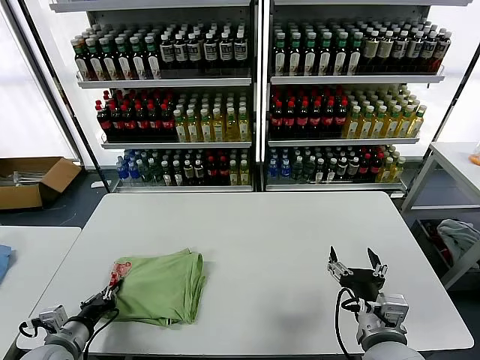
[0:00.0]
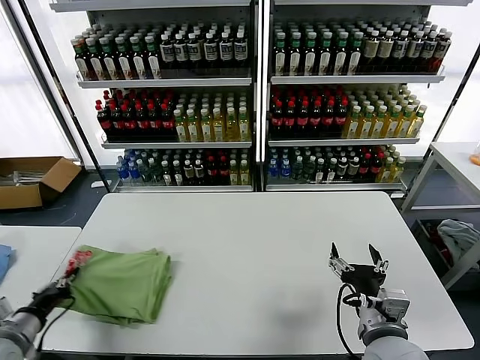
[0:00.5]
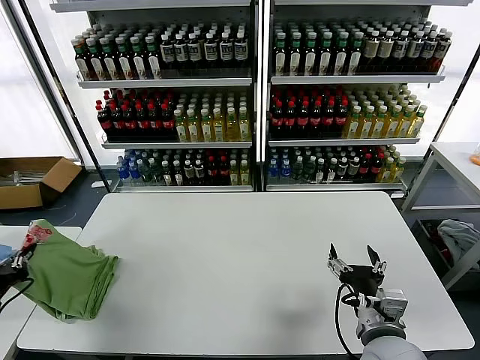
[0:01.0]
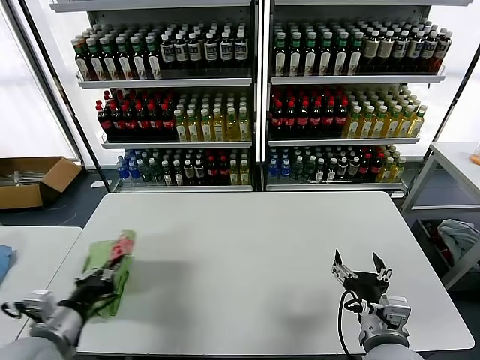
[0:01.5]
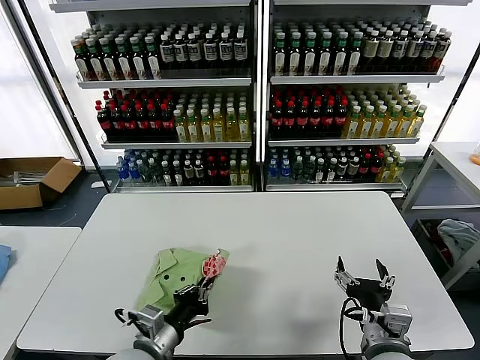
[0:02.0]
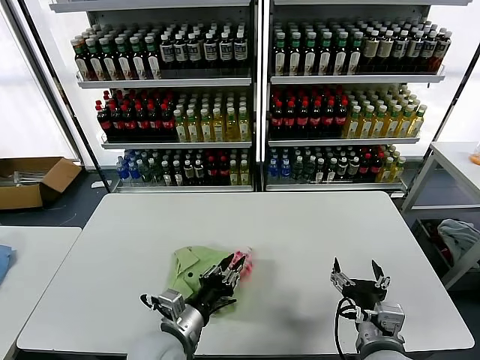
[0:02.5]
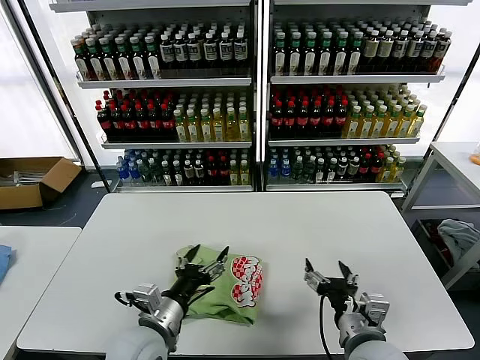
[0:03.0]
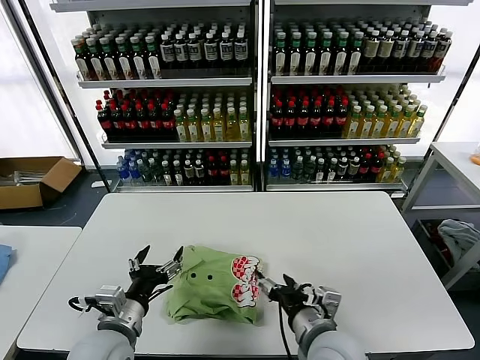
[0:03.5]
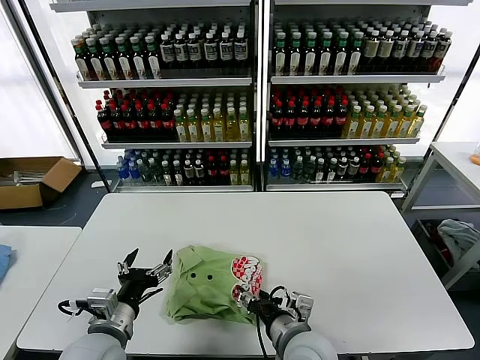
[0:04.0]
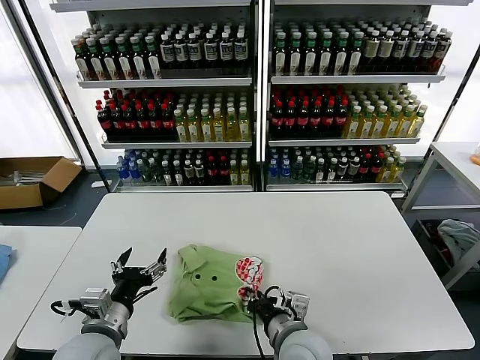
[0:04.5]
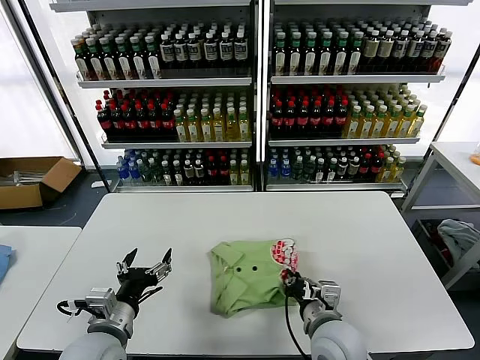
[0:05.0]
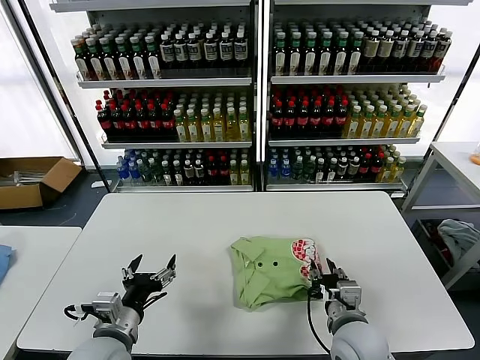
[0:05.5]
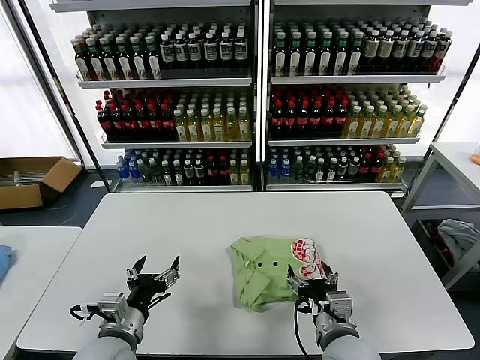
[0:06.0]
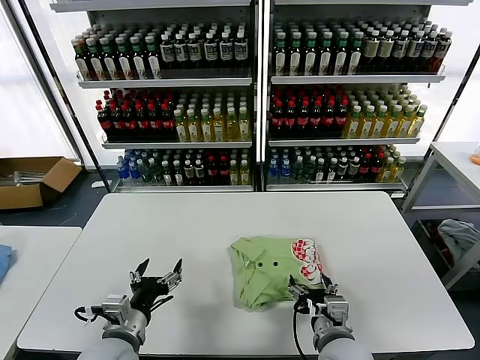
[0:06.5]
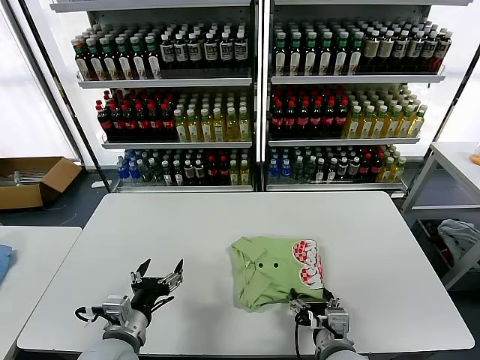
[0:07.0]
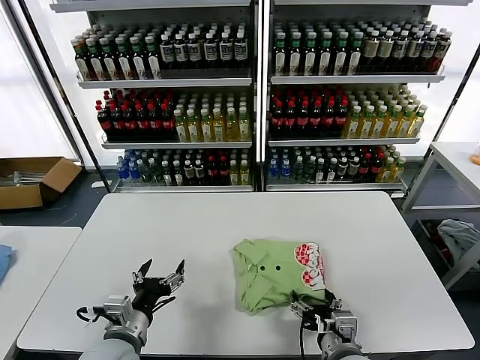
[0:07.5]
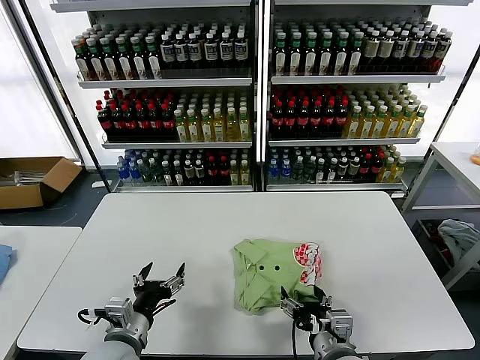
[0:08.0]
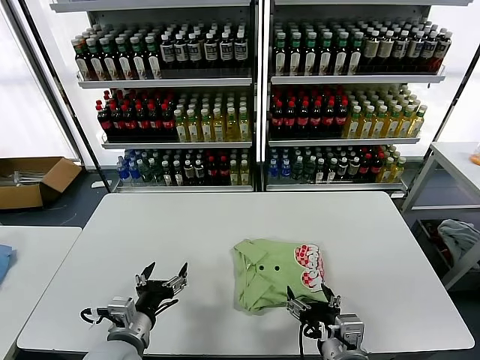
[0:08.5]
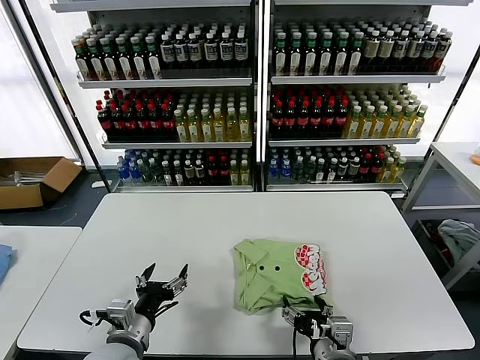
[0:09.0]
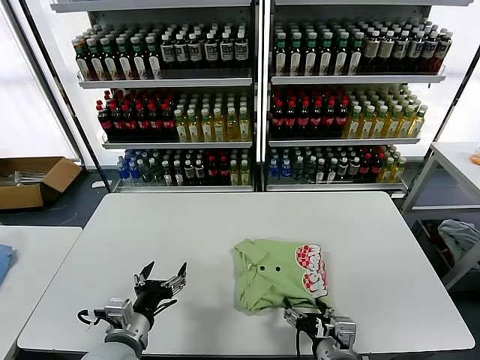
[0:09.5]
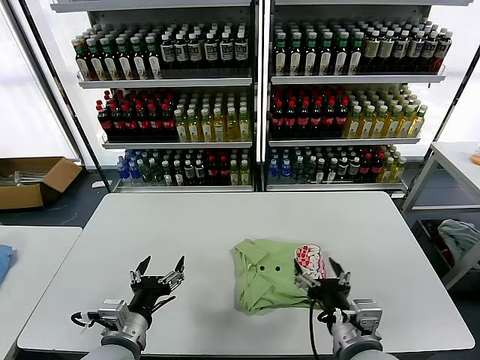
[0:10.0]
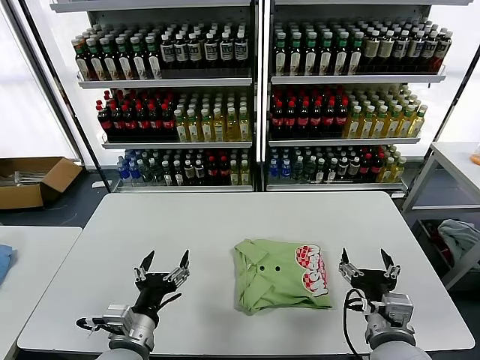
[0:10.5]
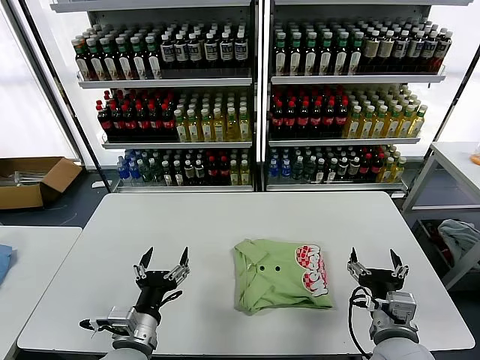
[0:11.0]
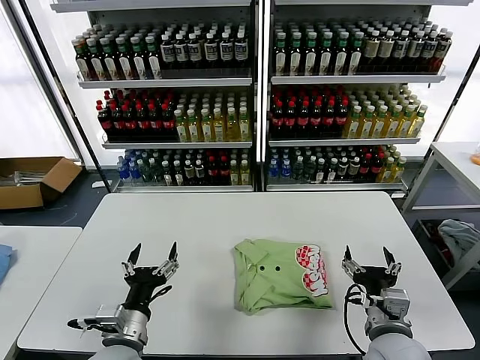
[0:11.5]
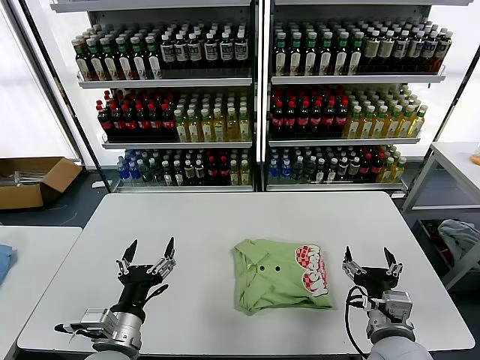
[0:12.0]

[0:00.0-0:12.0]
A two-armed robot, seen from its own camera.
Task of the whole recording: fold and organize the clothes.
Step, 0:00.0 to 0:02.5: Flip the folded clothes over with left gripper.
Step, 0:03.0 to 0:09.5: Drag the clothes to the center of the table.
0:00.0 to 0:02.0: The left gripper moves to the right, some 20 cm.
0:02.0 to 0:04.0: The right gripper travels to the left by approximately 10 cm; the left gripper travels to the left by some 5 cm, and opens up.
0:04.0 to 0:06.0: The right gripper travels to the right by about 5 cm, and closes, then reopens.
0:06.0 to 0:08.0: There are only small adjustments of the grippers.
0:08.0 to 0:10.0: The right gripper shifts by about 5 cm.
0:10.0 to 0:12.0: The right gripper goes roughly 5 cm to the right.

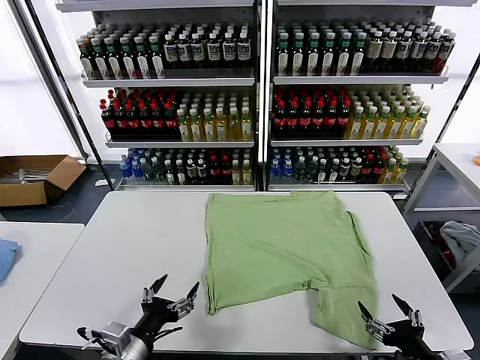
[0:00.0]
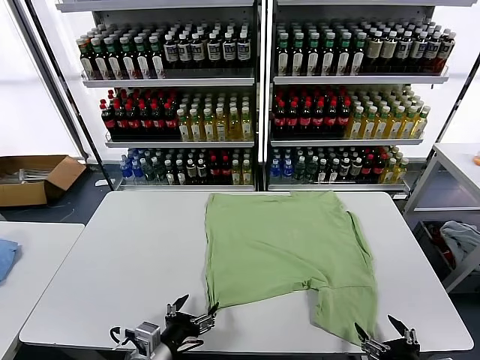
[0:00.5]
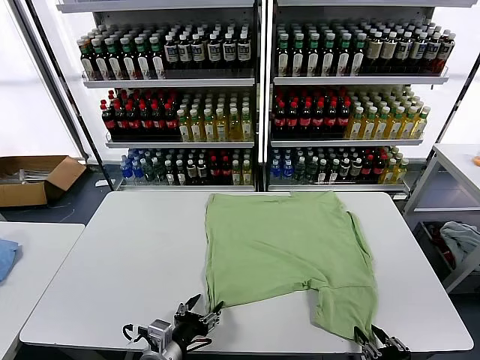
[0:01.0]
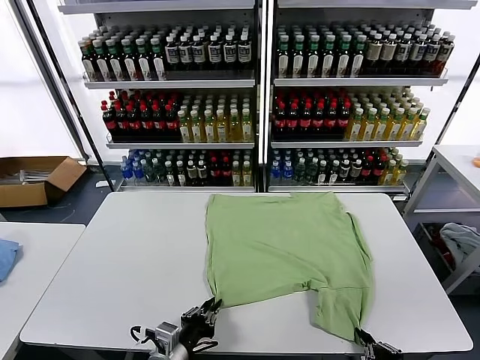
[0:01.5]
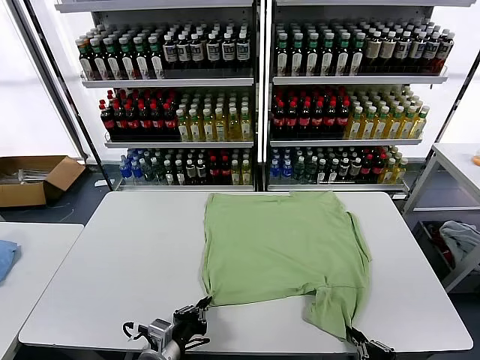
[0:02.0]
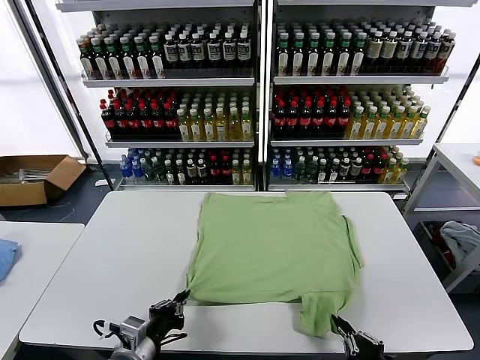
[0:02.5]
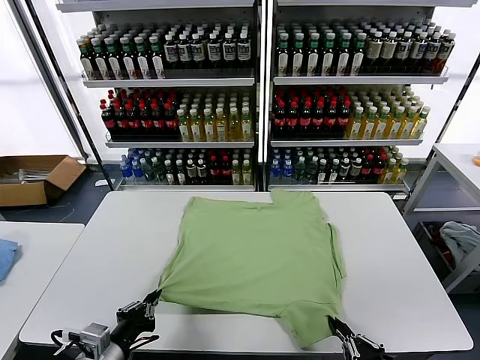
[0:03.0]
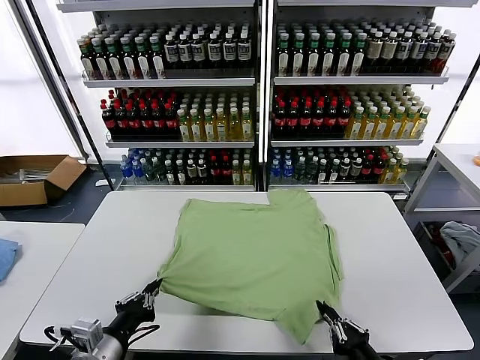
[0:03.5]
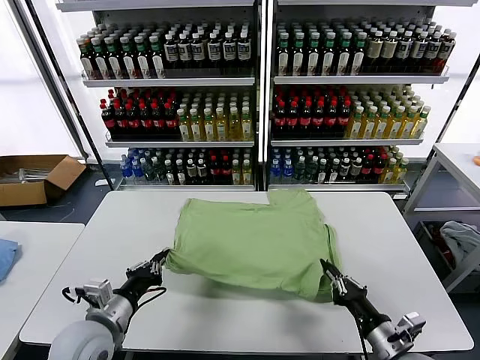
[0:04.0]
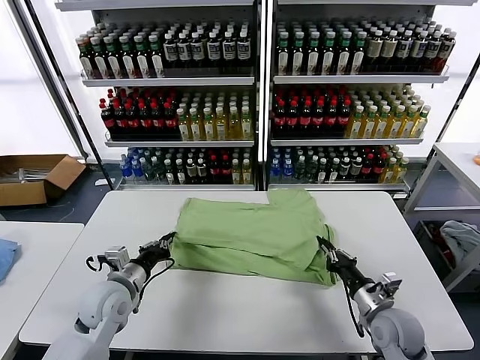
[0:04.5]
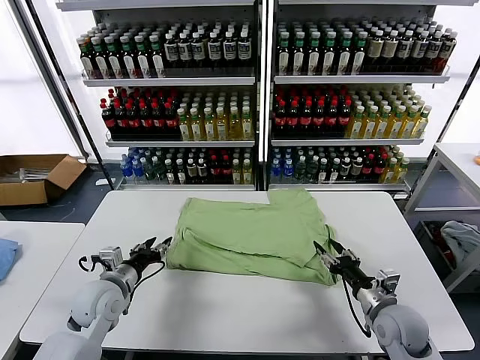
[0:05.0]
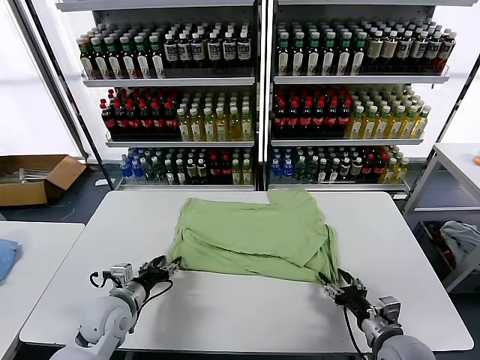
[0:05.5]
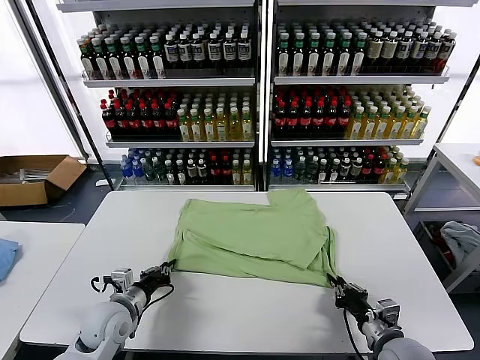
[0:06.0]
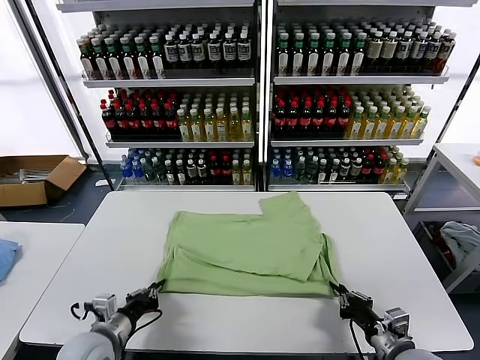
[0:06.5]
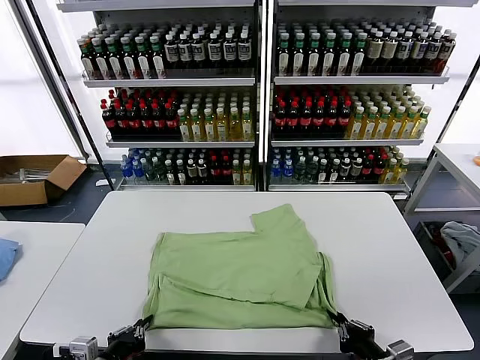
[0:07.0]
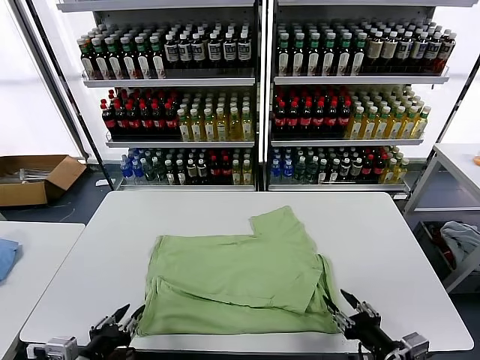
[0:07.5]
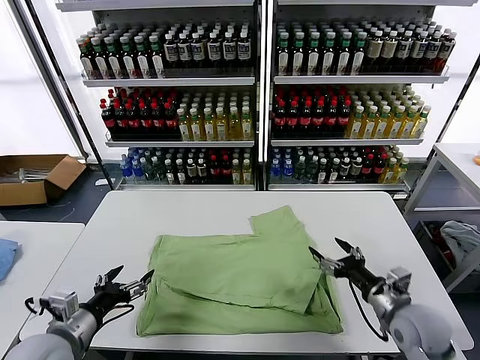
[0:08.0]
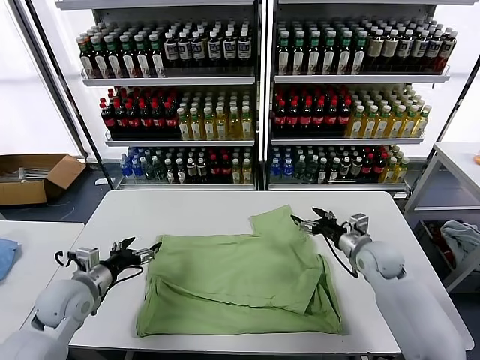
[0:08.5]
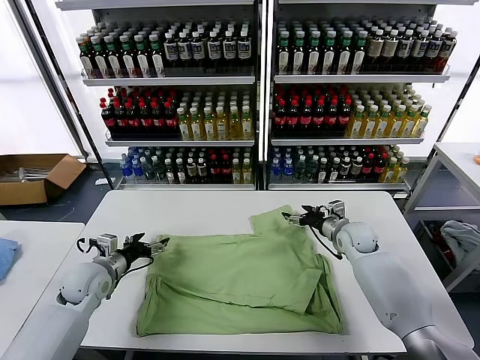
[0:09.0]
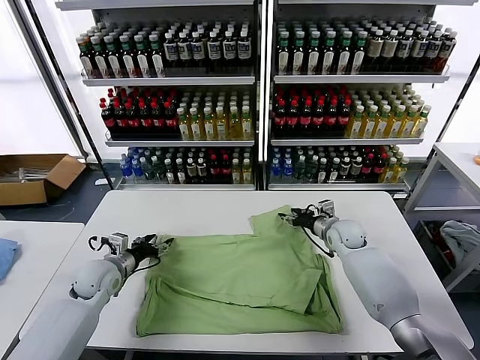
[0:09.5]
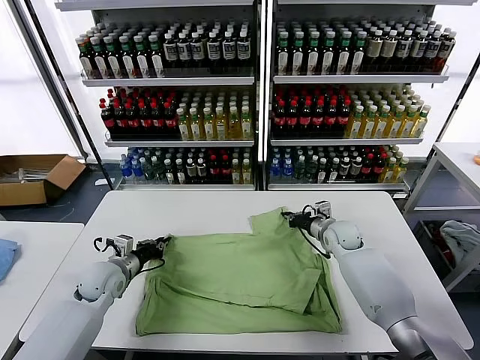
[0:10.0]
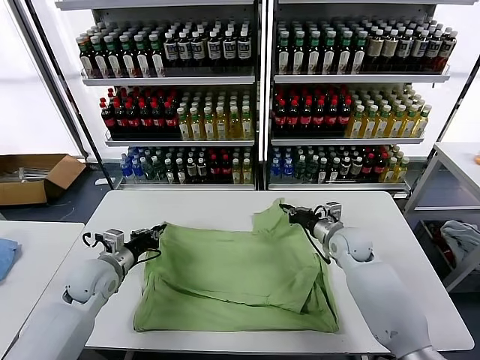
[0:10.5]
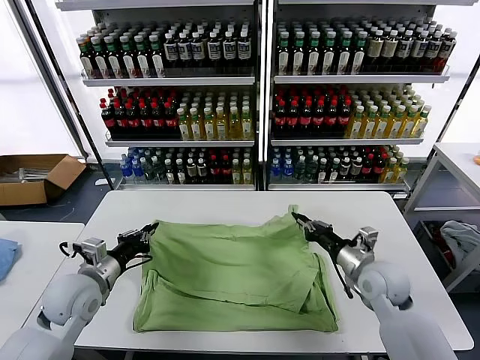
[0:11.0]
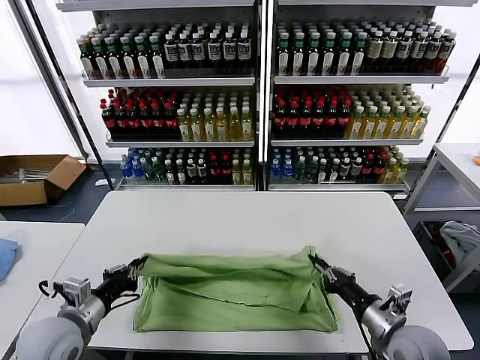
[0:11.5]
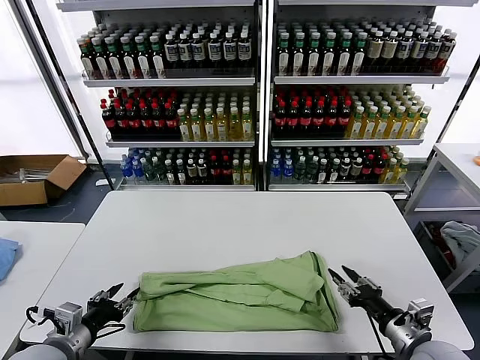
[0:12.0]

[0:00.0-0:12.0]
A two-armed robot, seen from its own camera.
Task of the whole recording: fold and organize the clothes.
Step, 0:00.0 to 0:01.5: use both grippers simultaneously to clamp the lower edge of the clothing fabric.
Step, 0:02.0 to 0:04.5: use both grippers to drag the lower edge of the fabric forward and fold it over the upper edge.
Step, 0:05.0 to 0:07.0: Drag the clothes downward with both gripper.
Step, 0:07.5 to 0:10.0: use both grippers simultaneously to clamp the upper edge of the clothing fabric.
Step, 0:10.5 to 0:11.5: use both grippers to drag the upper edge of the fabric backward and fold it over the lower edge.
0:02.0 to 0:04.0: The left gripper is displaced to the left and upward by roughly 10 cm; the right gripper goes some 10 cm forward.
0:04.0 to 0:06.0: The right gripper travels forward and back again, approximately 10 cm each way, and opens, then closes again. The left gripper heads downward and forward, covering approximately 10 cm, and opens and closes again.
0:06.0 to 0:08.0: The left gripper heads backward and upward, covering roughly 15 cm, and opens. Meanwhile the right gripper is displaced forward and upward by some 10 cm, and opens.
0:08.0 to 0:10.0: Both grippers move forward, approximately 20 cm. The left gripper closes up. The right gripper closes its fingers.
0:10.0 to 0:12.0: The left gripper moves backward, approximately 20 cm. The right gripper heads backward, covering some 30 cm, and opens.

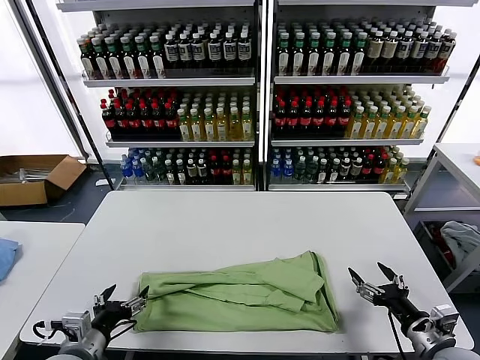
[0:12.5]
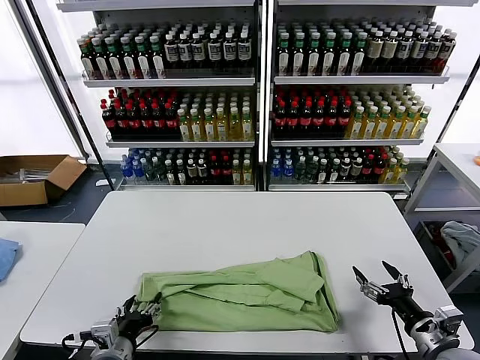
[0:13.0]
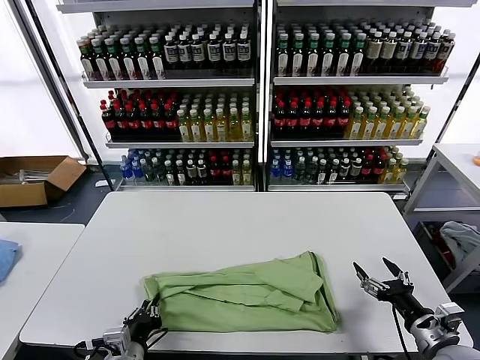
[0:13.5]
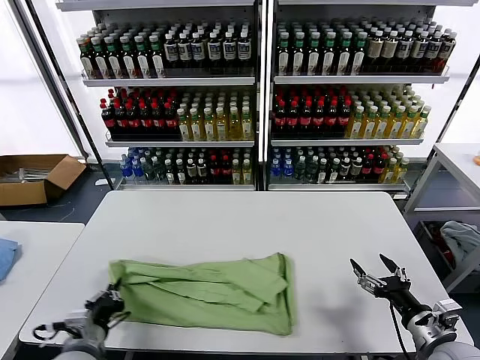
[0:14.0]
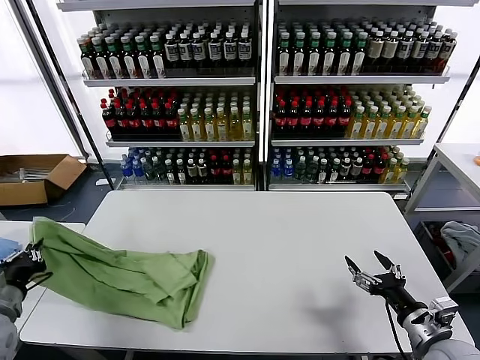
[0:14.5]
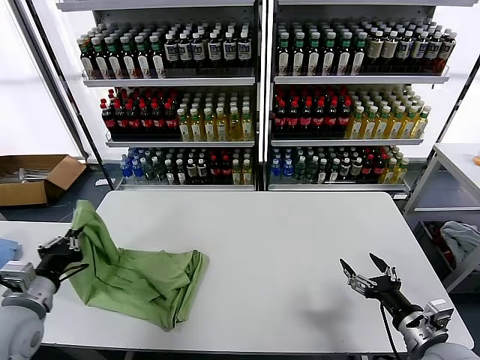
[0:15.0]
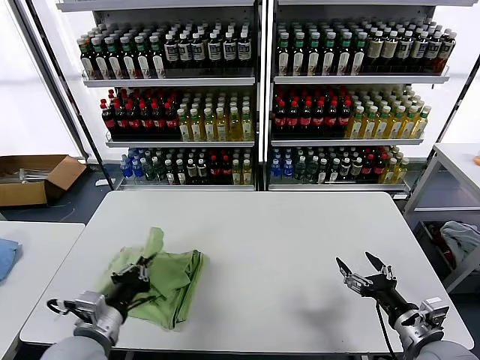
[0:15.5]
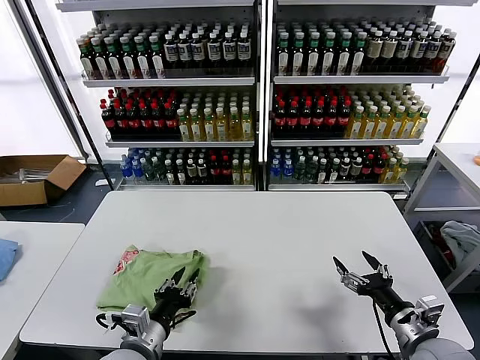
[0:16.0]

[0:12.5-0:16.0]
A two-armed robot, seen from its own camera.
Task of the whole recording: fold and organize the clothes.
Step, 0:12.5 to 0:13.5: use the left gripper to clamp the left edge of the fabric.
0:12.5 to 0:14.5: The left gripper moves to the left, roughly 15 cm, and closes up.
0:14.5 to 0:16.0: The left gripper goes approximately 25 cm to the right, and opens its fingers.
